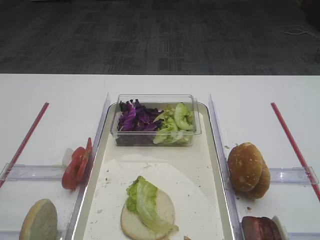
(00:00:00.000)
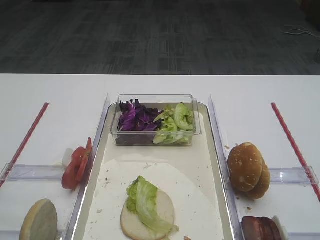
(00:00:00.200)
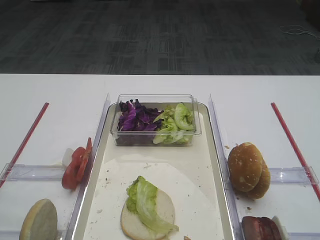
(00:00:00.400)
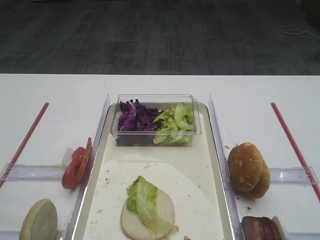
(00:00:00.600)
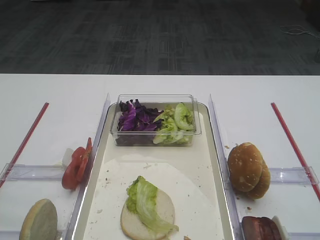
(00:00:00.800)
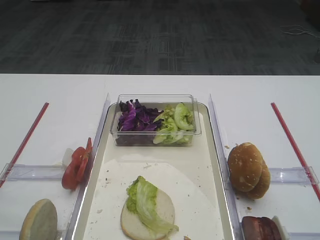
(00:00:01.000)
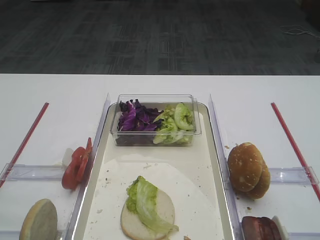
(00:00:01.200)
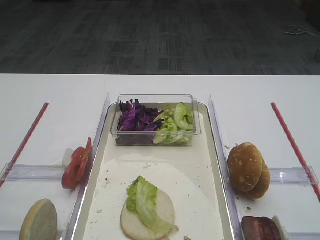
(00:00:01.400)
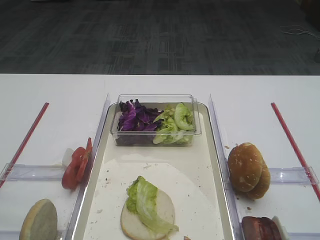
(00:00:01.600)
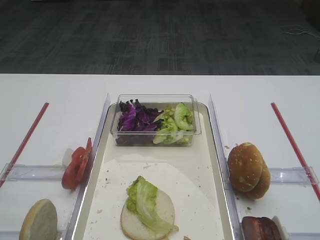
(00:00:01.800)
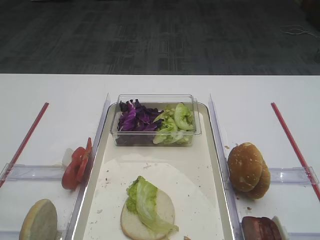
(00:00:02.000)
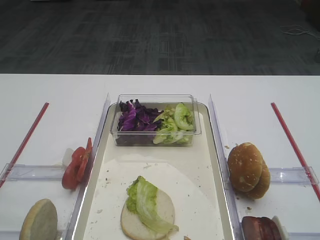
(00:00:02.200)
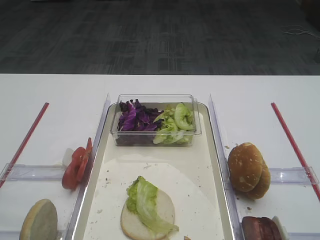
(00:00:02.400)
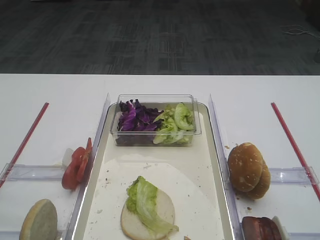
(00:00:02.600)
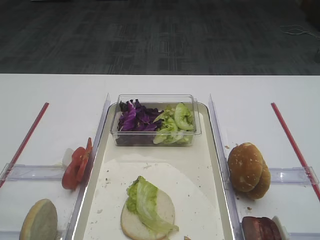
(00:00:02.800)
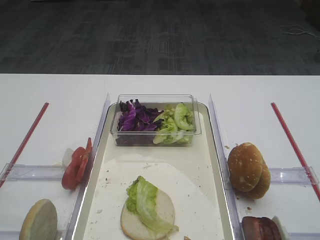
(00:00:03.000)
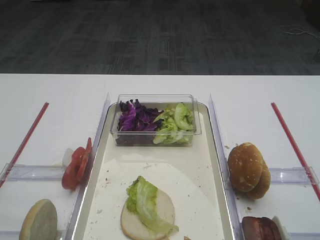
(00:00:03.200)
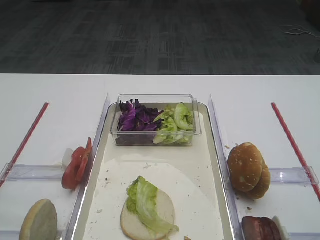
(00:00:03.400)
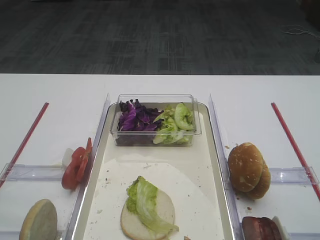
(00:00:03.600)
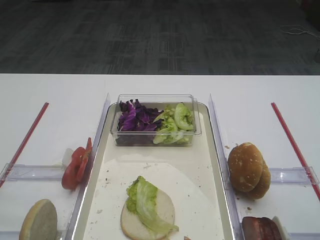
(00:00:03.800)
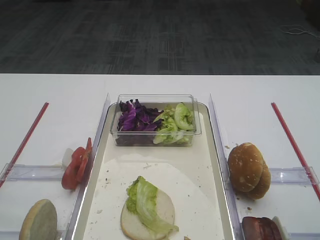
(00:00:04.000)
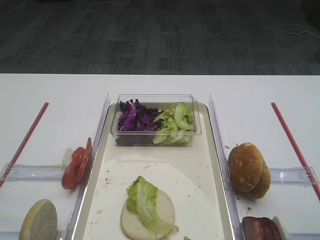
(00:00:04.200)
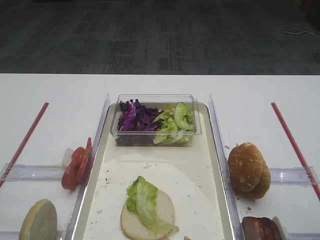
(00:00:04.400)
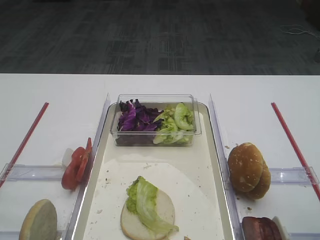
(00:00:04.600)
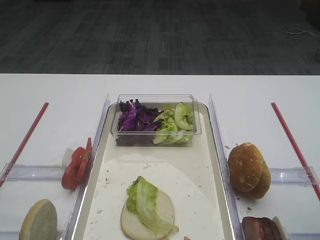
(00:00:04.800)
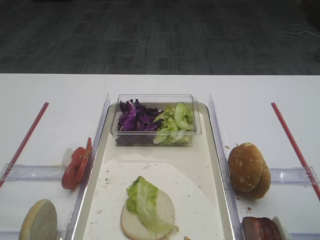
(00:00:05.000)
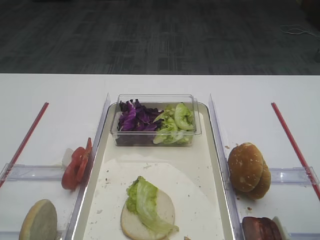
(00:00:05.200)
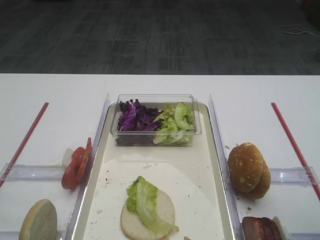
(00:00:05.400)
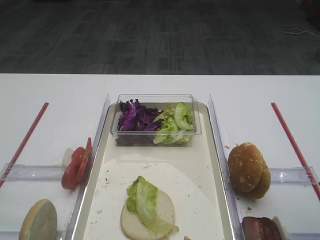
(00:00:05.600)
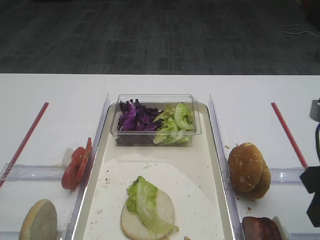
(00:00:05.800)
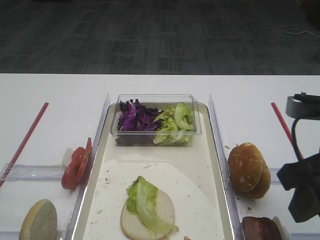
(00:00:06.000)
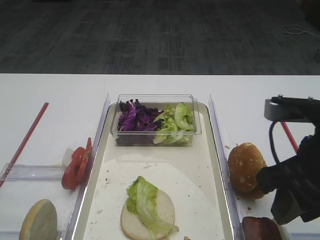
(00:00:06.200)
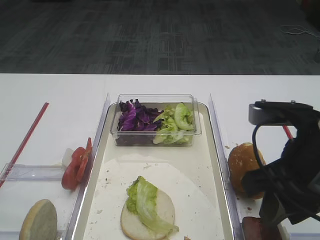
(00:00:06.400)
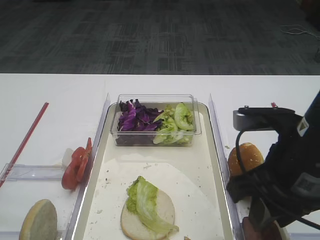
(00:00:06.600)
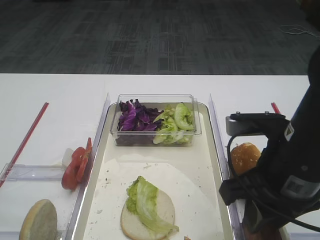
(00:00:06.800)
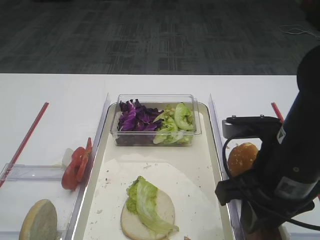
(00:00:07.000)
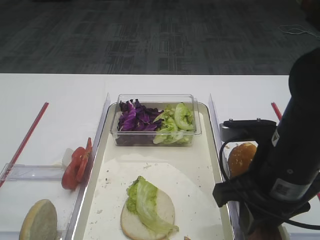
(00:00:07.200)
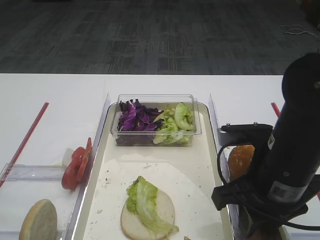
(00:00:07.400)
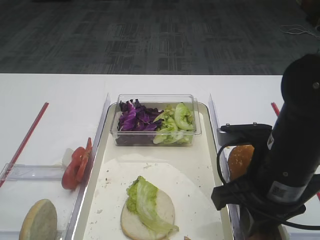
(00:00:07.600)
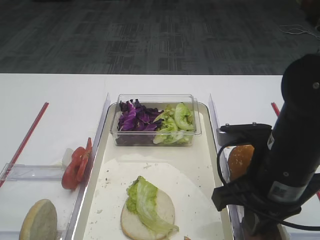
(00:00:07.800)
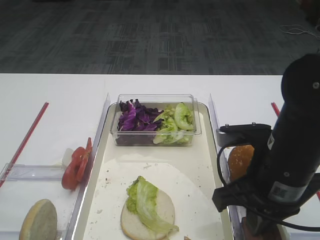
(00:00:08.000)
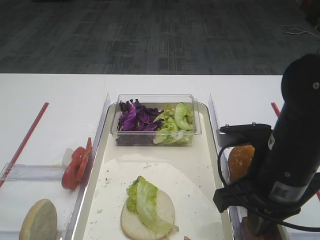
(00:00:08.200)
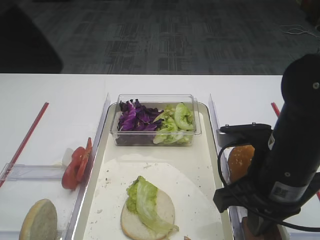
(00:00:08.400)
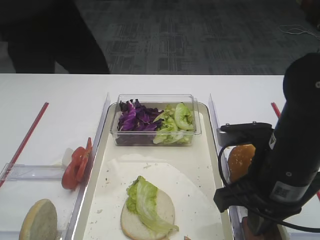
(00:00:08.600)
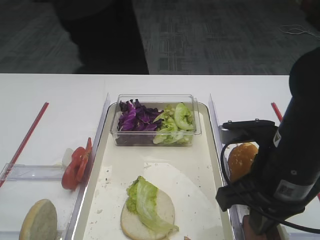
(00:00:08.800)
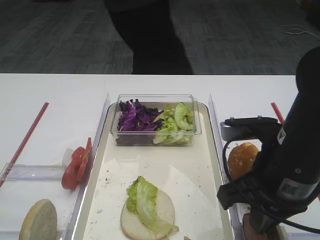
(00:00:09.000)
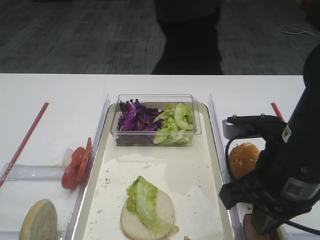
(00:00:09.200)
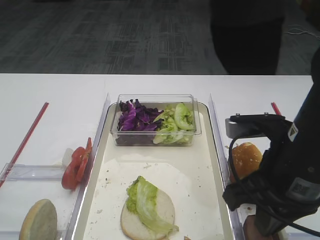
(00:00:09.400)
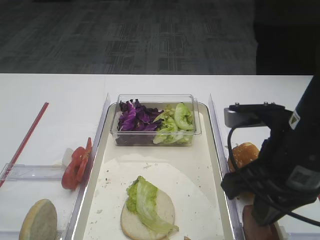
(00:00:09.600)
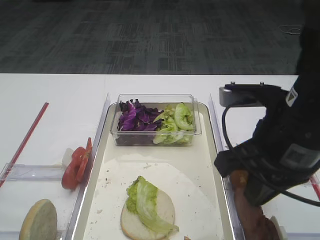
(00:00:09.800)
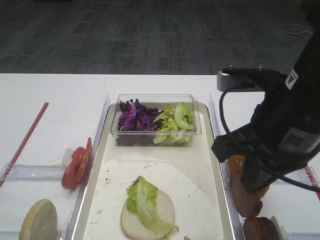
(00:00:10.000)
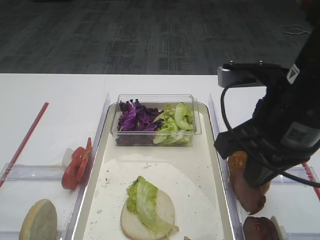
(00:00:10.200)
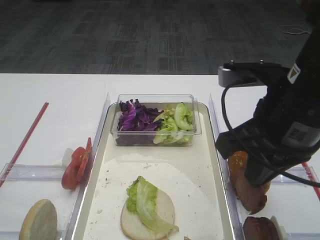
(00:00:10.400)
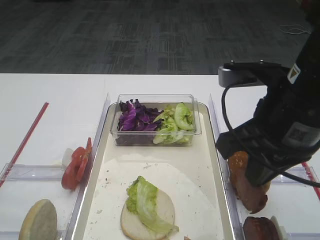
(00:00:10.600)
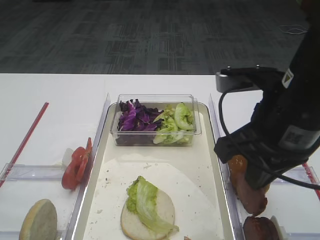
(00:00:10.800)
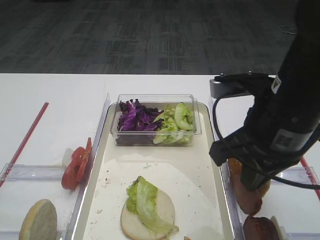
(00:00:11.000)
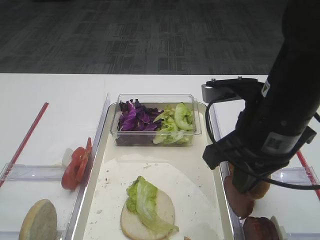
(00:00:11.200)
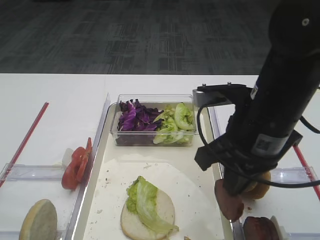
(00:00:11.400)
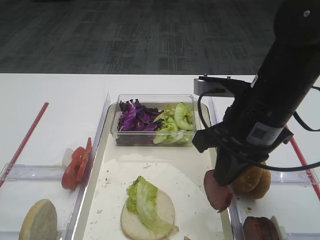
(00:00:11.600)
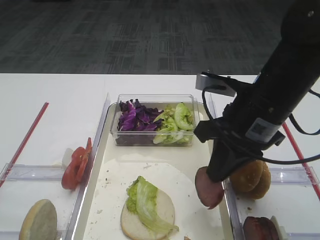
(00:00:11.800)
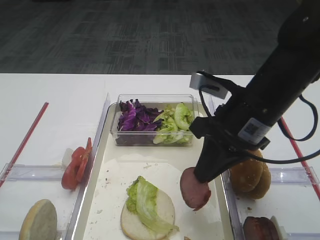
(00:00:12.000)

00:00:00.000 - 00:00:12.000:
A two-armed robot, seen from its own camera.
Step, 00:00:00.000 - 00:00:09.800: Pick up the cutlet with the right gripper.
00:00:04.400 - 00:00:06.000: The right gripper goes some 5 cm to the left.
00:00:06.000 - 00:00:07.600: The right gripper travels to the left and downward by roughly 10 cm.
00:00:07.600 - 00:00:09.000: The right gripper closes its fingers.
00:00:09.000 - 00:00:10.400: The right gripper shifts approximately 5 cm upward.
00:00:10.400 - 00:00:12.000: The right gripper shifts some 10 cm forward and downward.

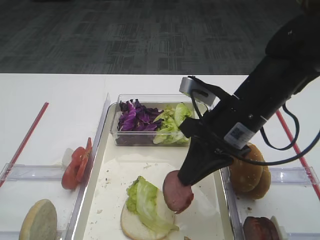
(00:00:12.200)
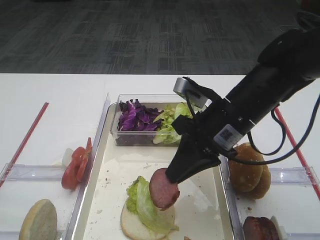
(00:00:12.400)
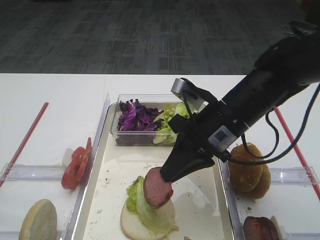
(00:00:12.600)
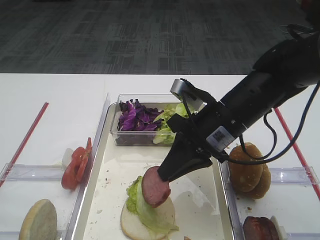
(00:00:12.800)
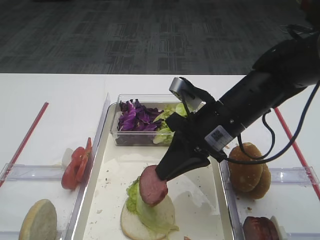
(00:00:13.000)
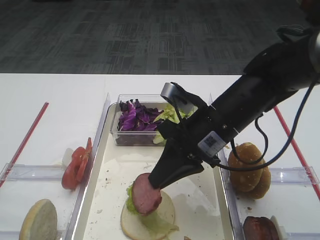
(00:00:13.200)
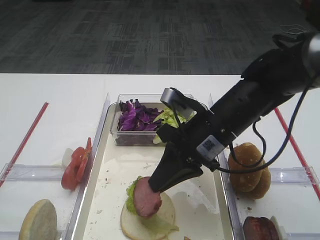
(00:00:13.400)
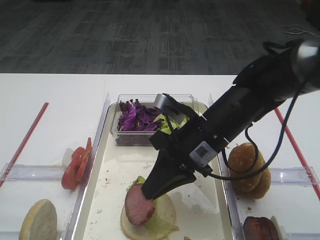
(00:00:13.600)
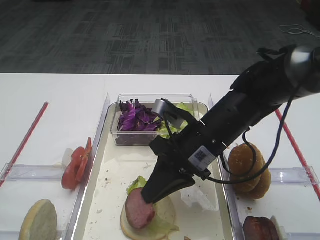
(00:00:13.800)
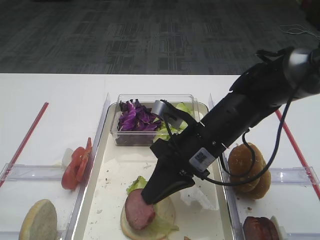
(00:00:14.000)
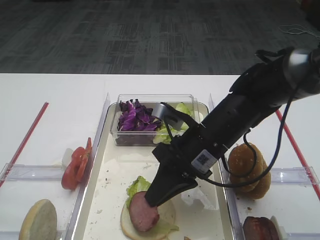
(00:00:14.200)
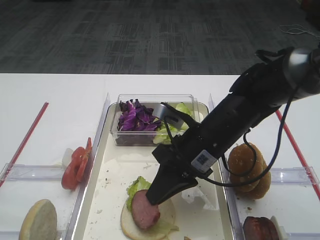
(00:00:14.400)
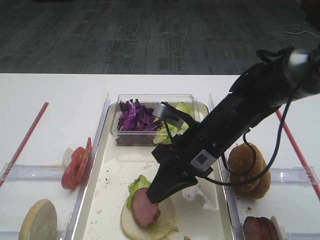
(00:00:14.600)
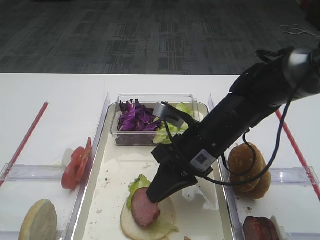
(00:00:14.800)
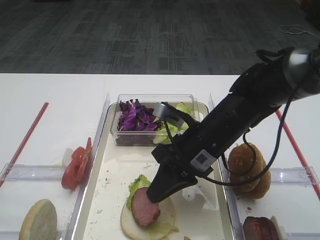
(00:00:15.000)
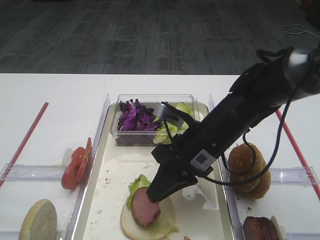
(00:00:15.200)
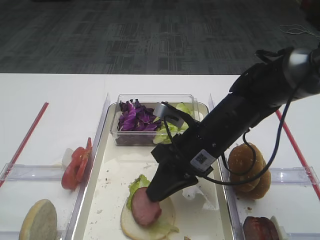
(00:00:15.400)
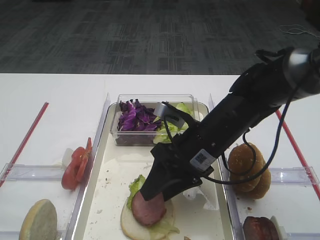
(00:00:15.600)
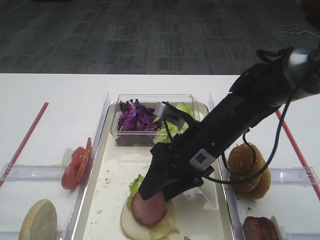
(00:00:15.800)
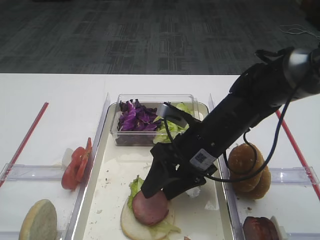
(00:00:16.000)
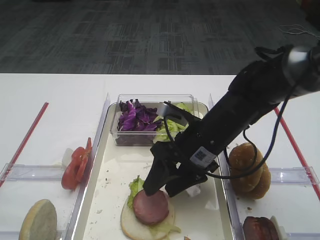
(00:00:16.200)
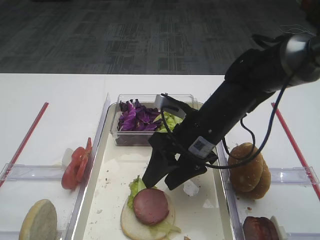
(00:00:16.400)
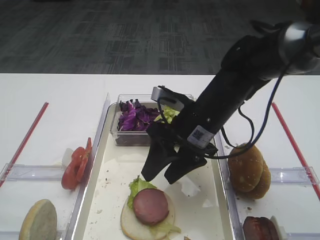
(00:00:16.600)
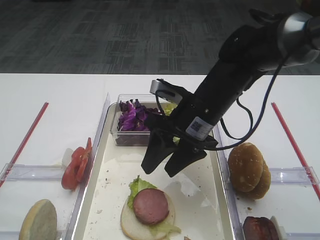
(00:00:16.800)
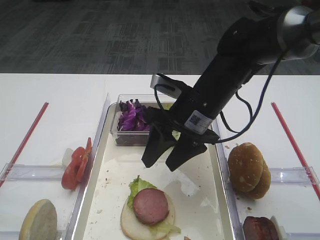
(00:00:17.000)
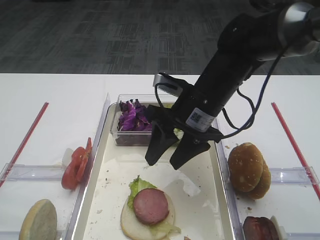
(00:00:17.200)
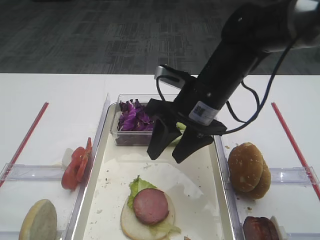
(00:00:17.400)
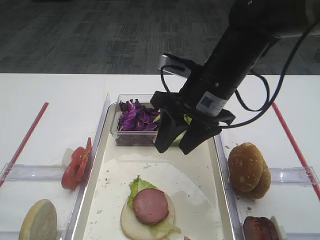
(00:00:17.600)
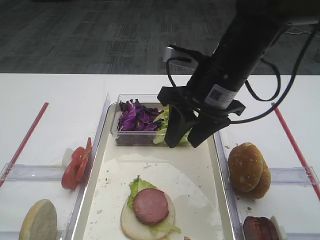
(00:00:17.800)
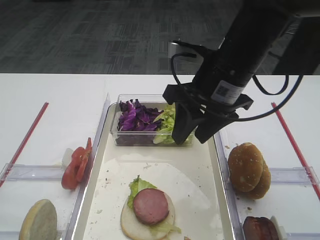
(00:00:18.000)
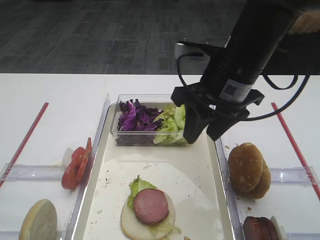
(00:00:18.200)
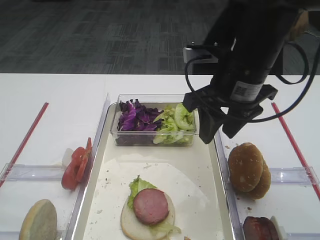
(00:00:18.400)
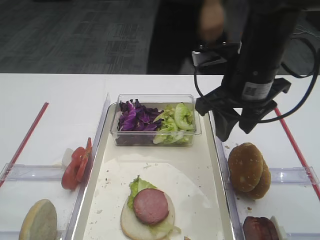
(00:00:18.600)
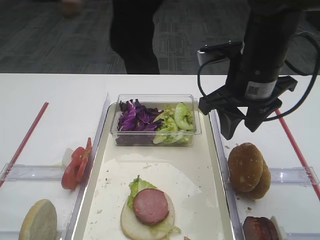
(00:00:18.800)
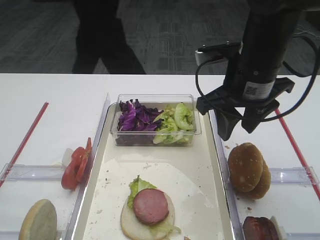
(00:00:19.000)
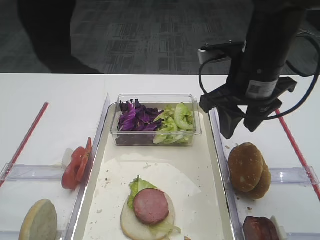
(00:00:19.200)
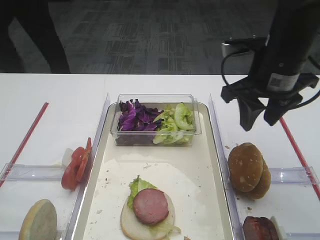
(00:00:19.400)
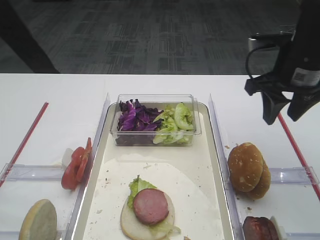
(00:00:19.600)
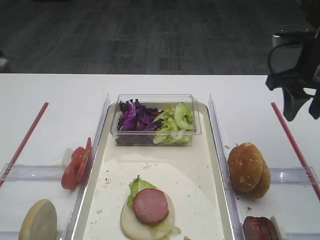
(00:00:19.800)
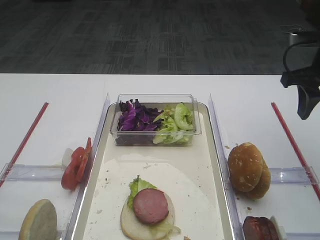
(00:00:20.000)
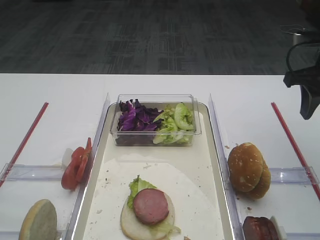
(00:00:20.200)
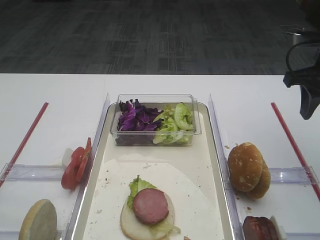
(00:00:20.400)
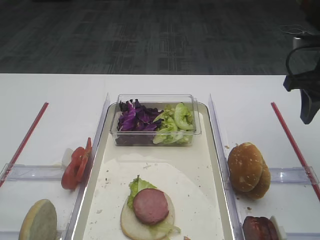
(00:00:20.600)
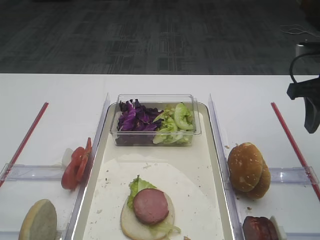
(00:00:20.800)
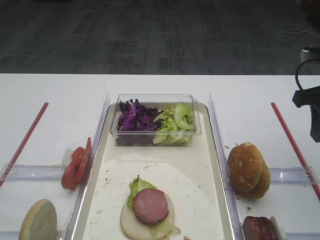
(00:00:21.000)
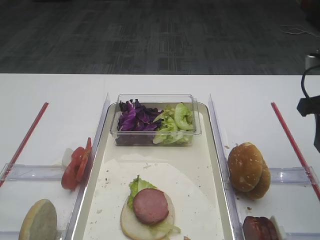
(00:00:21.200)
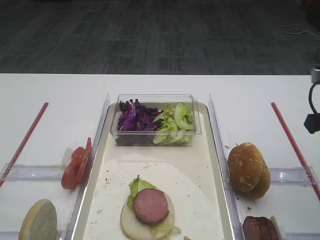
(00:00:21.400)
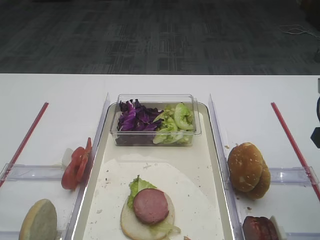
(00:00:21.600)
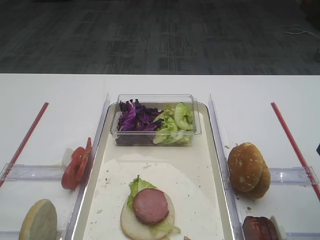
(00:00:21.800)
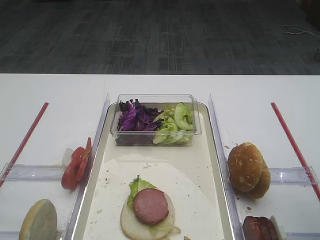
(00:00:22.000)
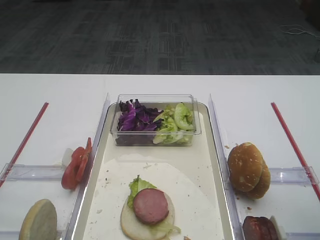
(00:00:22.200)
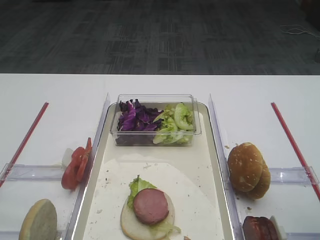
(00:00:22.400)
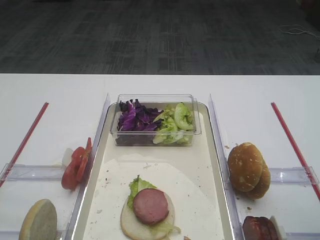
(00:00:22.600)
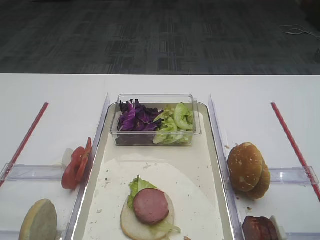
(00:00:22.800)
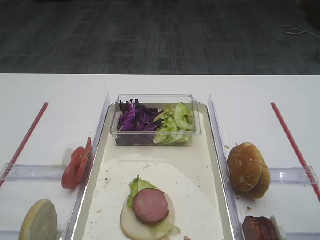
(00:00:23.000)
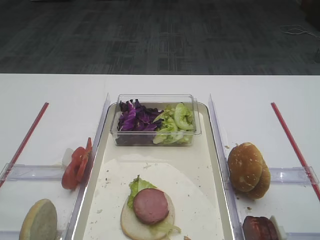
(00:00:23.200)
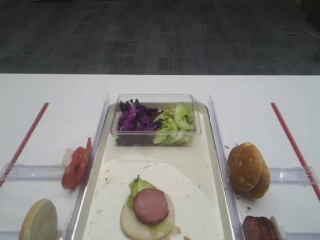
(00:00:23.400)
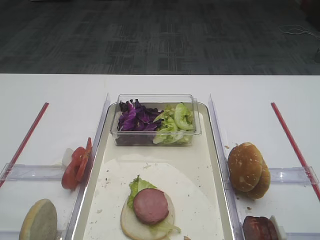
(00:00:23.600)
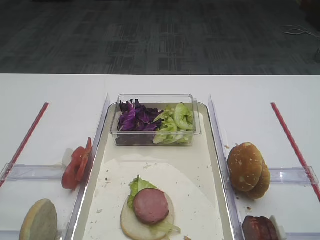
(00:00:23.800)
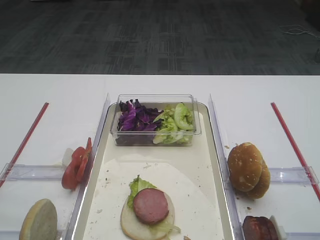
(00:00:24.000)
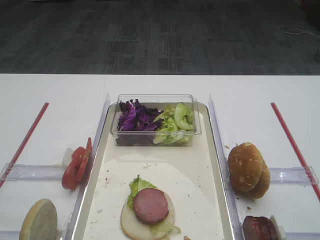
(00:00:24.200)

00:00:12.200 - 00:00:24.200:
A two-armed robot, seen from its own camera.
Step, 00:00:12.200 - 00:00:16.400: Place the cutlet on the lettuce leaf with the right gripper.
00:00:12.200 - 00:00:13.800: The right gripper travels downward by approximately 5 cm.
00:00:13.800 - 00:00:15.200: The grippers stay close to where they were, moving slightly.
00:00:15.200 - 00:00:16.600: The right gripper opens.
00:00:16.600 - 00:00:18.200: The right gripper heads upward, covering about 10 cm.
00:00:18.200 - 00:00:19.800: The right gripper shifts about 15 cm to the right.
00:00:19.800 - 00:00:21.200: The right gripper moves backward, about 5 cm.
00:00:21.200 - 00:00:22.600: The right gripper heads backward, covering approximately 15 cm.
